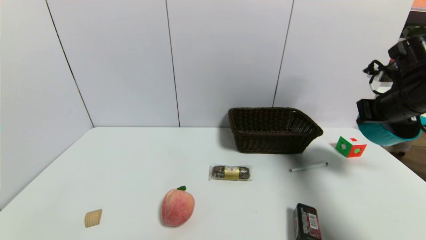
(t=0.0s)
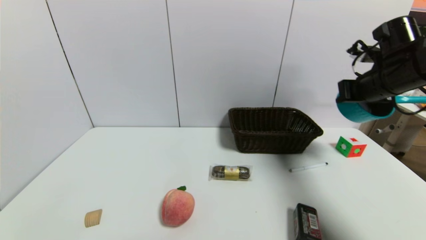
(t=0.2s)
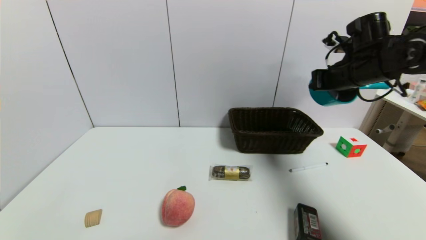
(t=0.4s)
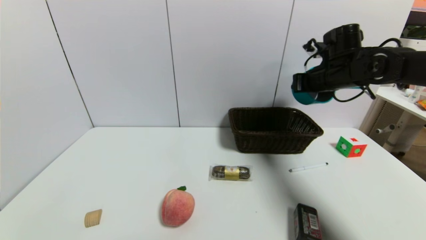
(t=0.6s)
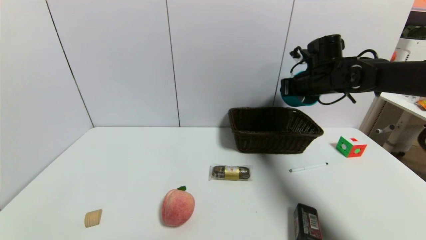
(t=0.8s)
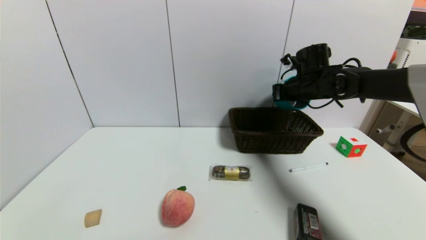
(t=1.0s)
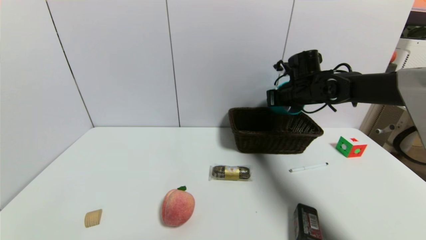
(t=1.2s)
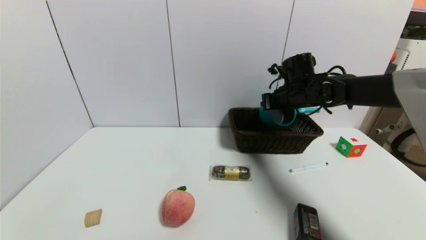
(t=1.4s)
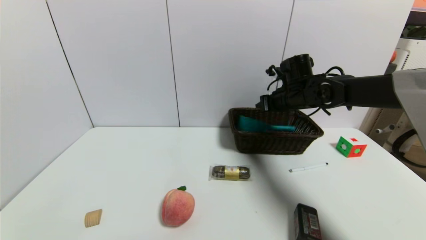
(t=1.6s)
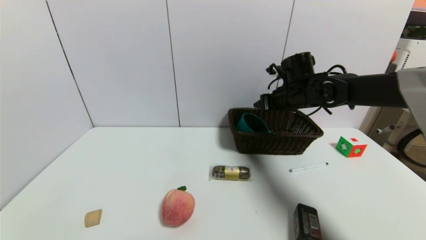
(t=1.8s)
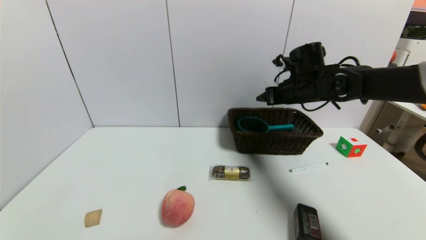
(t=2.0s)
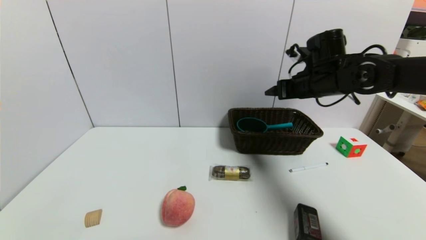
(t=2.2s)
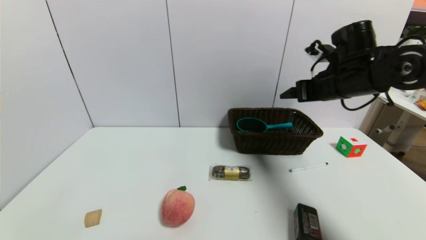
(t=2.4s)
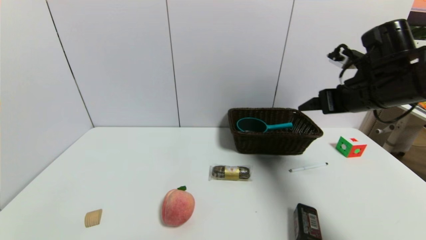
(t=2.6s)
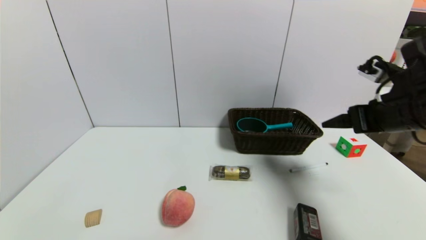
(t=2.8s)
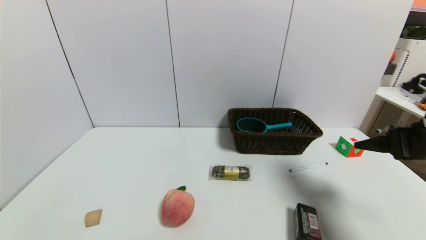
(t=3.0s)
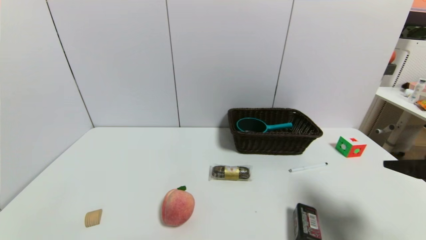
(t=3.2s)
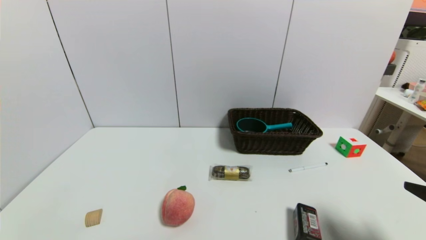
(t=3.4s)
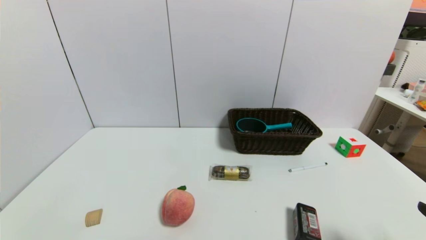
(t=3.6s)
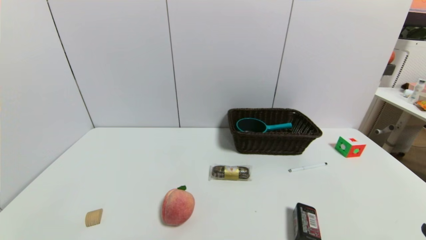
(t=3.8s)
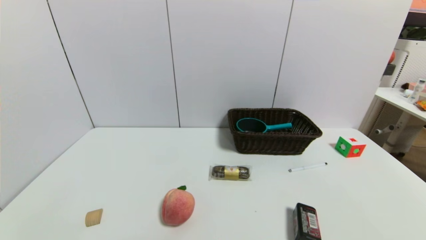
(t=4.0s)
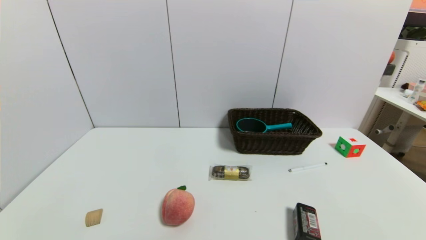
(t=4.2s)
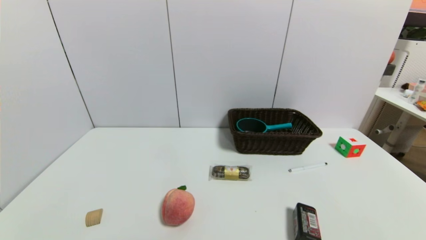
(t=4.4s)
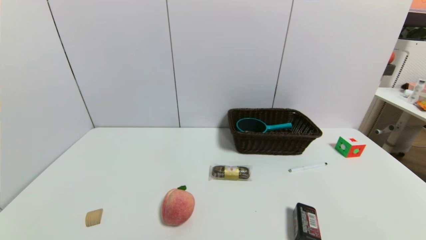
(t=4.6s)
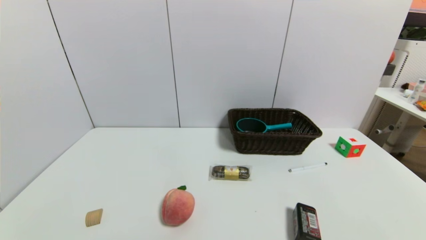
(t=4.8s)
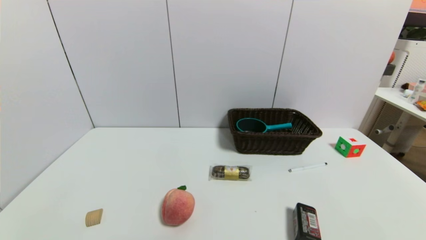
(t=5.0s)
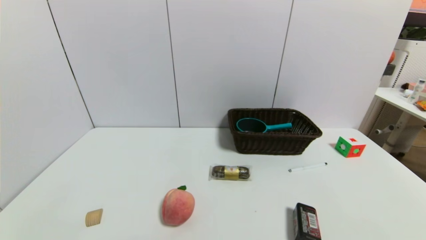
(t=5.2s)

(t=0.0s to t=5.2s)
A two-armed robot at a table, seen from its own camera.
Task of the whole recording: use a gripper to pick the target object and place on the brown basket.
Step, t=0.0s - t=1.4s: Place the blue pot into the basket with the right gripper.
t=0.0s - t=1.8s: The right gripper is displaced to the left and forward by roughly 20 cm, and opens up.
t=1.8s - t=3.4s: The right gripper is displaced backward and to the right by about 35 cm, and opens up.
t=3.4s - t=5.2s: The right gripper moves downward and backward, about 15 cm.
